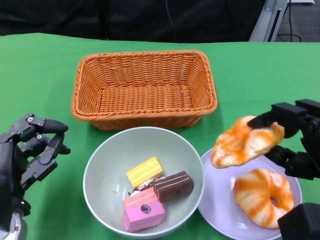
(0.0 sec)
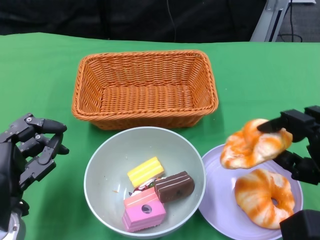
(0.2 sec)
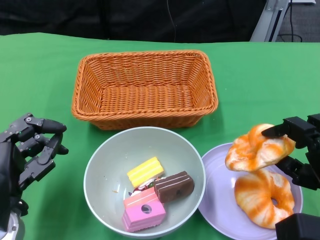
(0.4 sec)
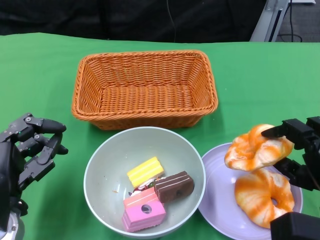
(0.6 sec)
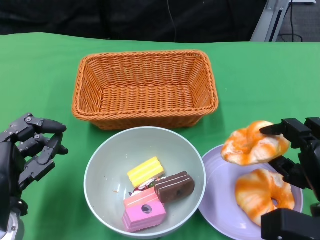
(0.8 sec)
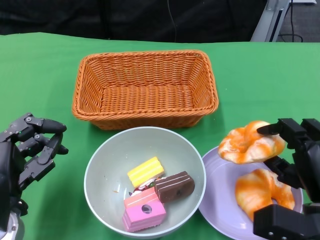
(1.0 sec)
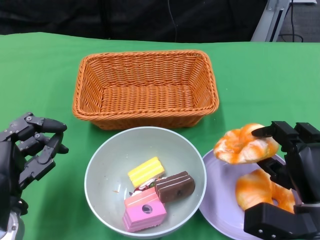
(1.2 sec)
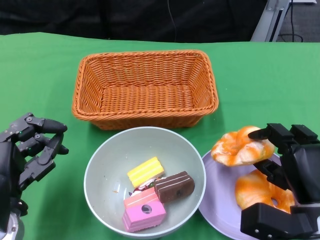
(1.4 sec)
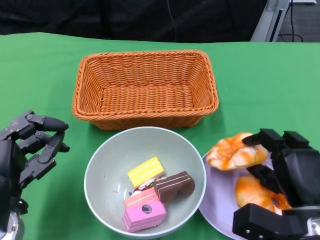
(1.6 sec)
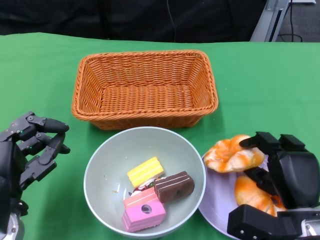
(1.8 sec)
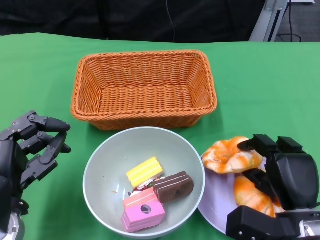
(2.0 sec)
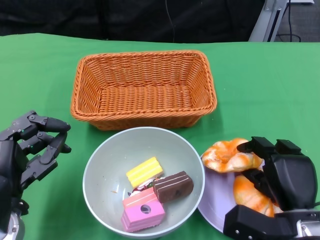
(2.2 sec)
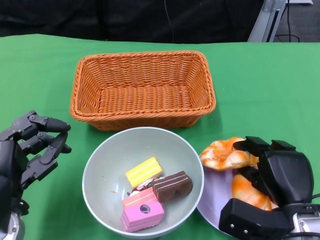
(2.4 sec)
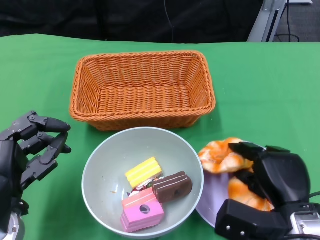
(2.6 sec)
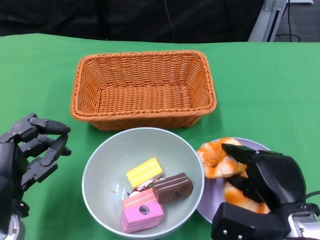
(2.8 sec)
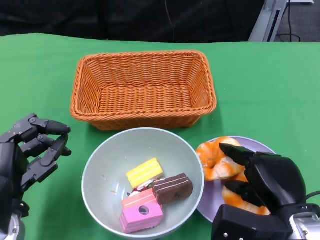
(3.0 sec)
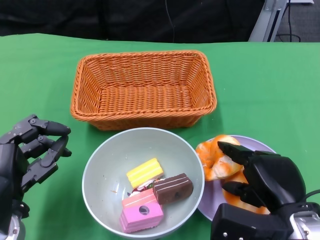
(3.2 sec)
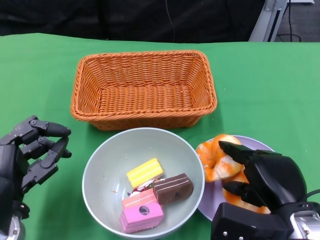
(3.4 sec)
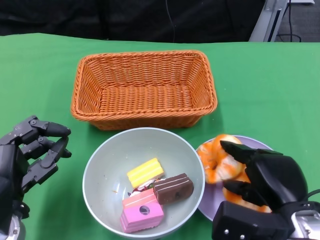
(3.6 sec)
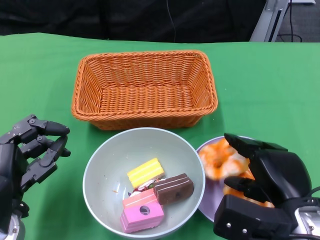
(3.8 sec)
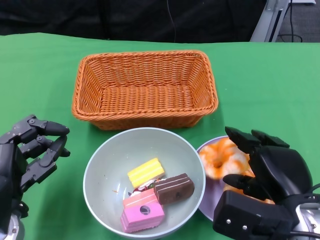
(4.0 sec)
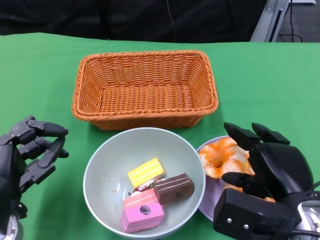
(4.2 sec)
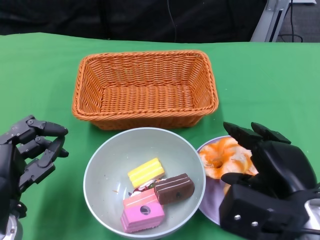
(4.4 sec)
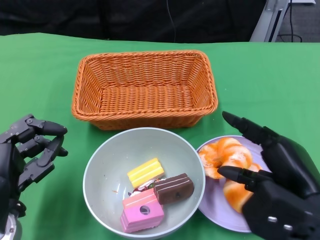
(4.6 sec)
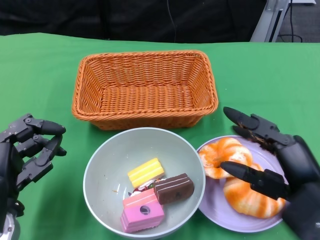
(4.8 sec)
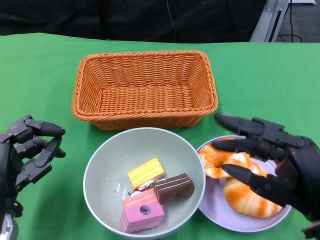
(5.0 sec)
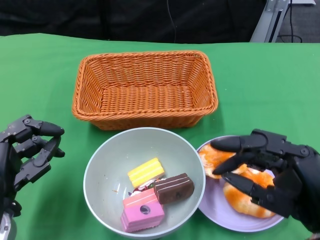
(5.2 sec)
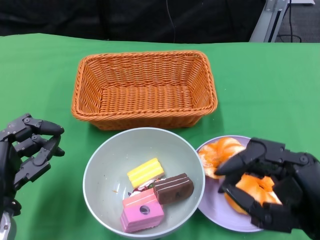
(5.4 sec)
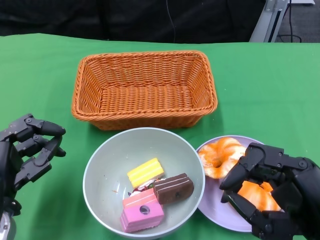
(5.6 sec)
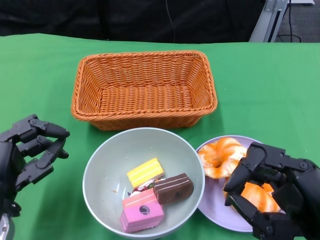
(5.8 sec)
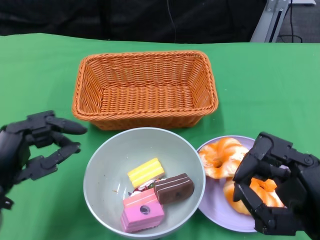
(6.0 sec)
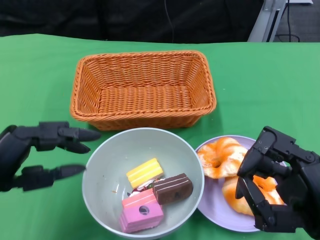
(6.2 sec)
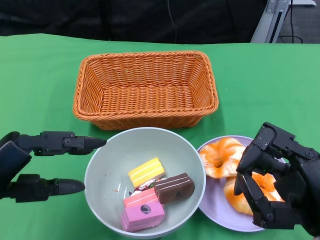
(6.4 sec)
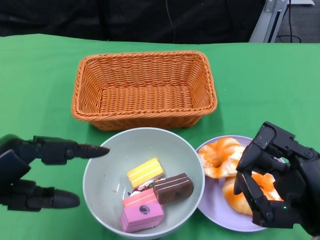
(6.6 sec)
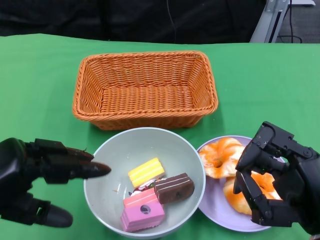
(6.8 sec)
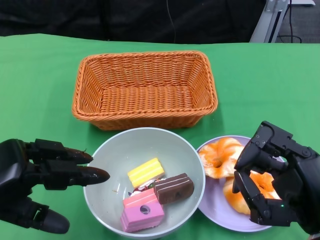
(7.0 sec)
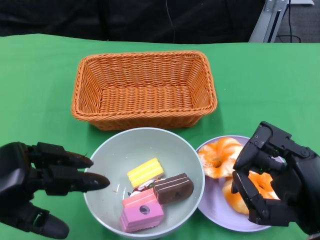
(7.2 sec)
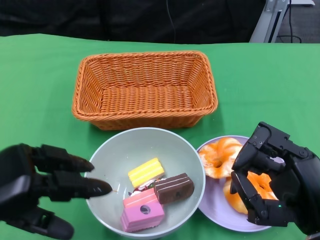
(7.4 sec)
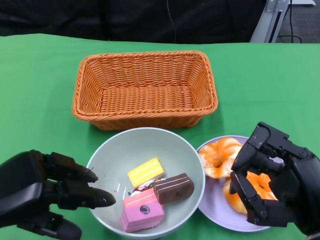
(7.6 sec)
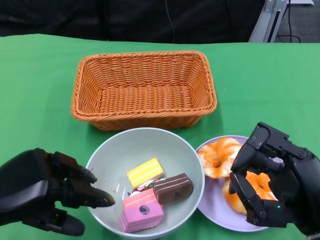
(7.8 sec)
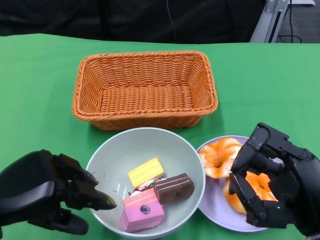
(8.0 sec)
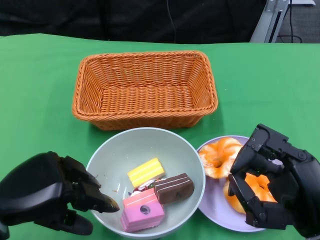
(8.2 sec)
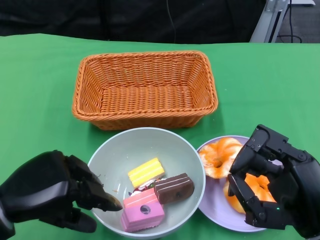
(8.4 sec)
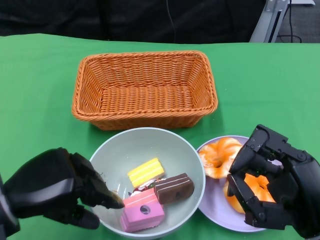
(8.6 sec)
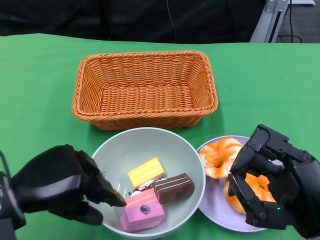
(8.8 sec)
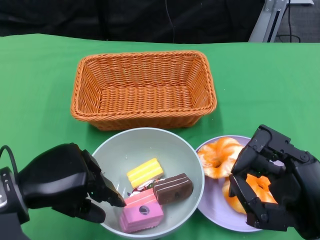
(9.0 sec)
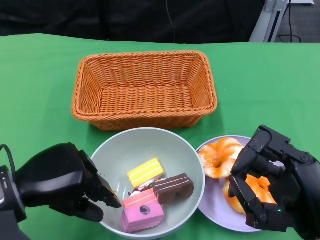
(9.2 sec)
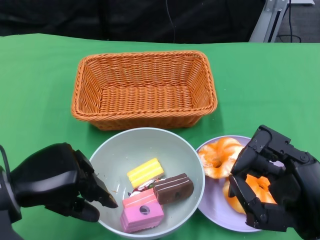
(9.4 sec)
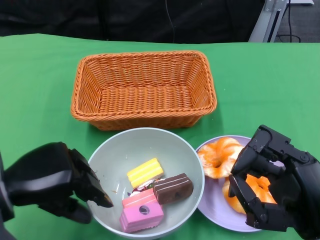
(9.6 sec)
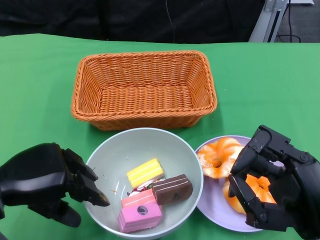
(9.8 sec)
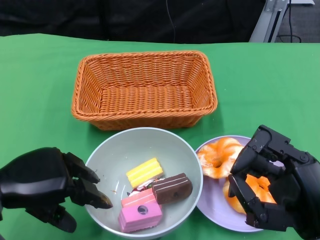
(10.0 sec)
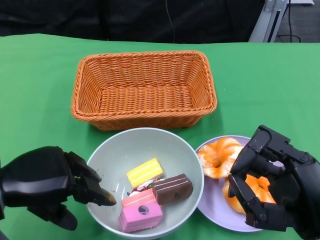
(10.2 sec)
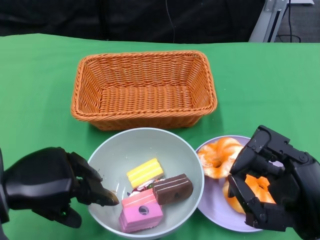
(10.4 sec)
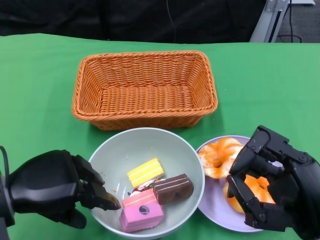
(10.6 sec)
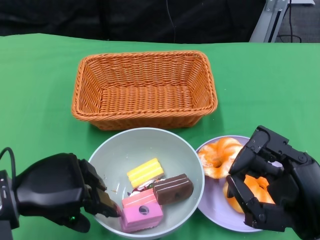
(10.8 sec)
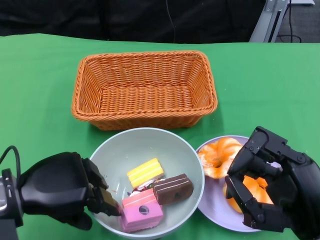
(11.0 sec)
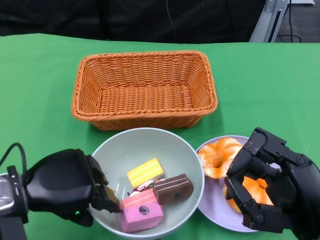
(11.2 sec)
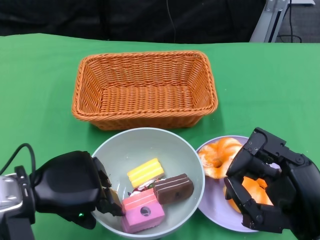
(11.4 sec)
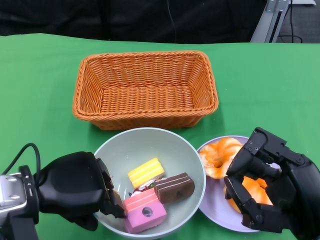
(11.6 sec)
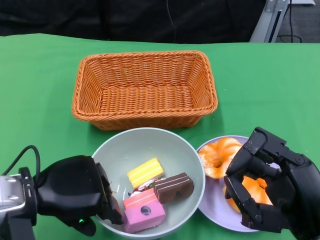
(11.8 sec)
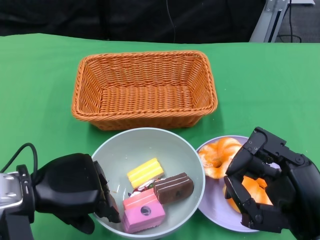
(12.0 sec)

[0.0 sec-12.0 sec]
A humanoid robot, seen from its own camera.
Step, 0.0 sec to 4.4 sec: Pick up the bread with the right gripper and place it on the plate.
0.0 sec to 1.6 sec: The right hand travels downward by roughly 10 cm.
3.0 sec to 4.4 sec: The right hand shifts by roughly 5 cm.
4.4 sec to 6.0 sec: The right hand moves backward, some 5 cm.
7.6 sec to 9.0 sec: The left hand moves approximately 5 cm.
9.0 sec to 12.0 sec: There are only small adjustments of the hands.

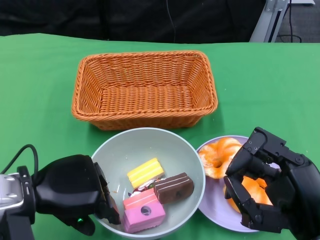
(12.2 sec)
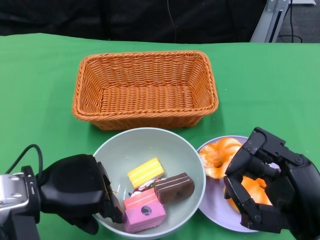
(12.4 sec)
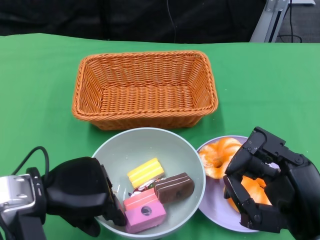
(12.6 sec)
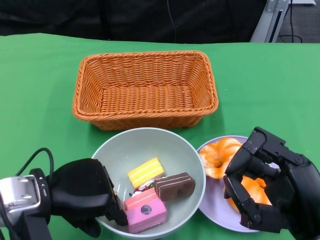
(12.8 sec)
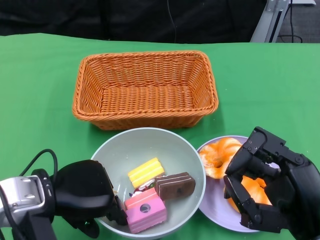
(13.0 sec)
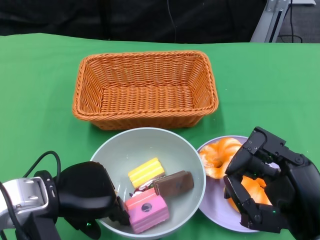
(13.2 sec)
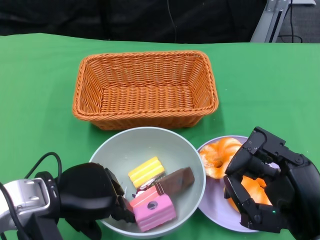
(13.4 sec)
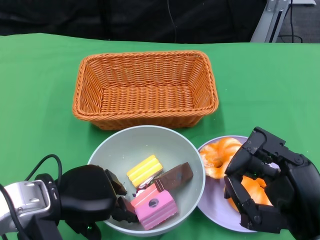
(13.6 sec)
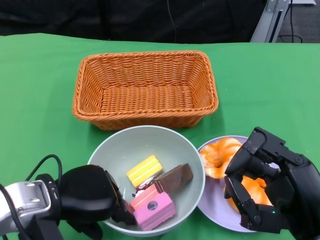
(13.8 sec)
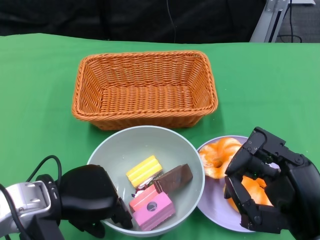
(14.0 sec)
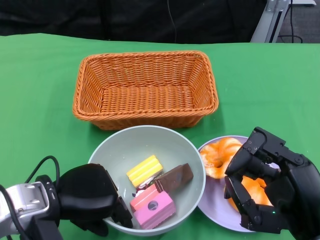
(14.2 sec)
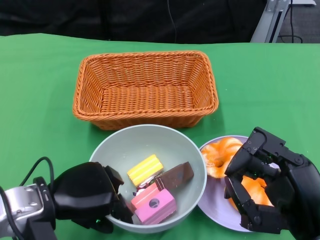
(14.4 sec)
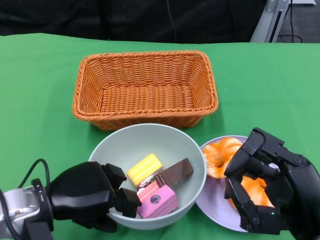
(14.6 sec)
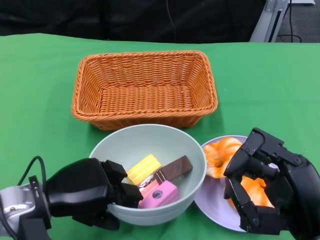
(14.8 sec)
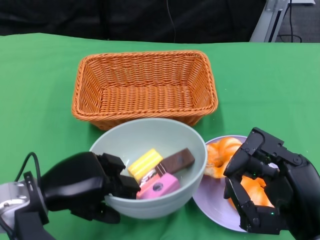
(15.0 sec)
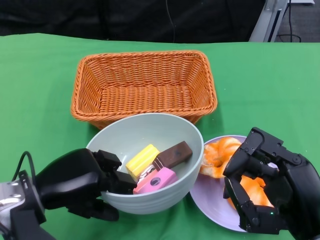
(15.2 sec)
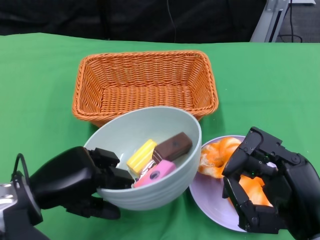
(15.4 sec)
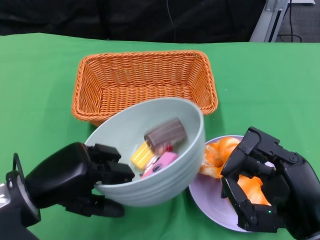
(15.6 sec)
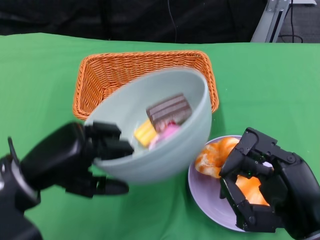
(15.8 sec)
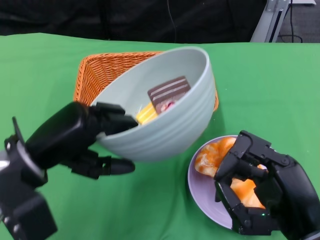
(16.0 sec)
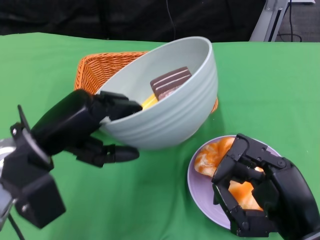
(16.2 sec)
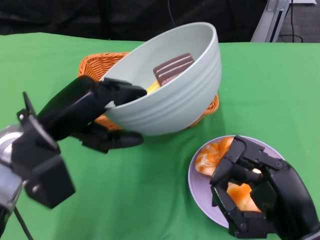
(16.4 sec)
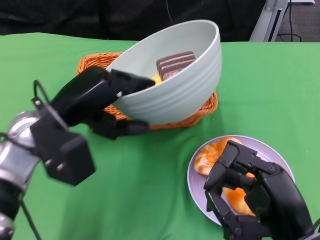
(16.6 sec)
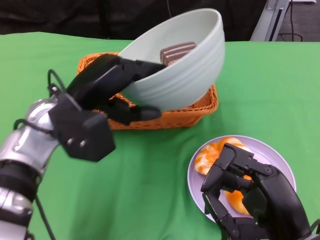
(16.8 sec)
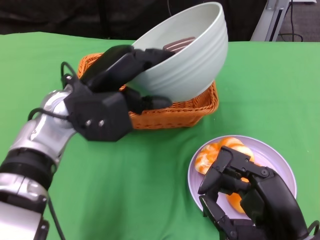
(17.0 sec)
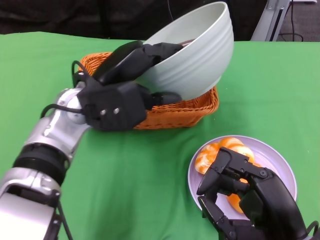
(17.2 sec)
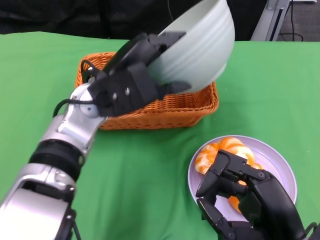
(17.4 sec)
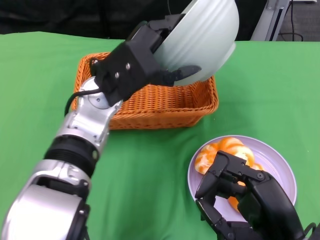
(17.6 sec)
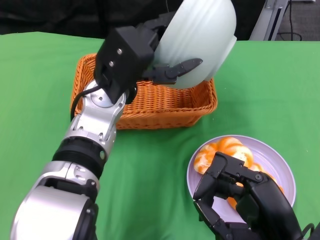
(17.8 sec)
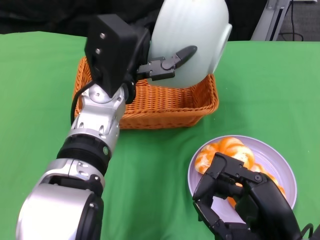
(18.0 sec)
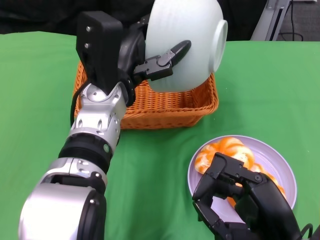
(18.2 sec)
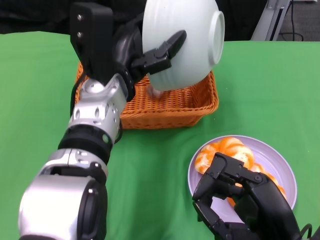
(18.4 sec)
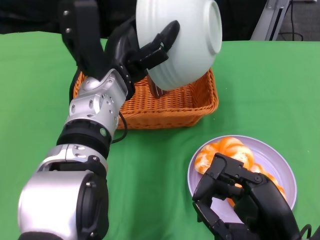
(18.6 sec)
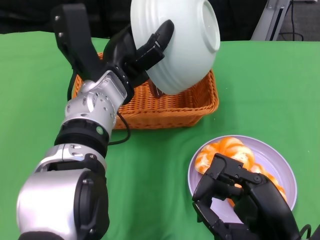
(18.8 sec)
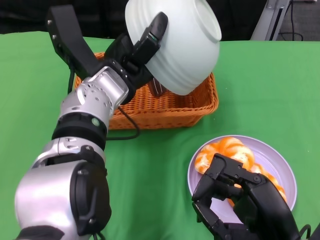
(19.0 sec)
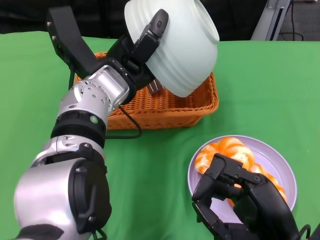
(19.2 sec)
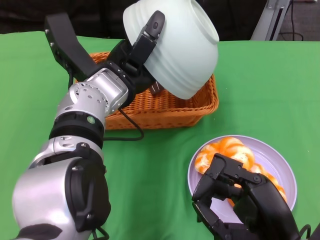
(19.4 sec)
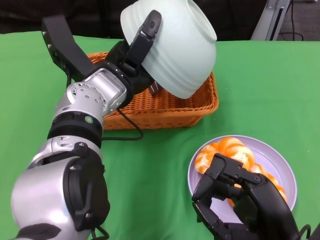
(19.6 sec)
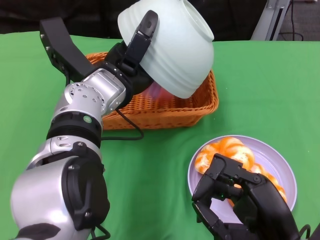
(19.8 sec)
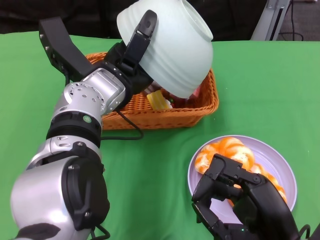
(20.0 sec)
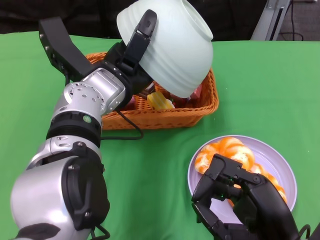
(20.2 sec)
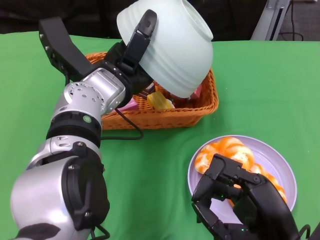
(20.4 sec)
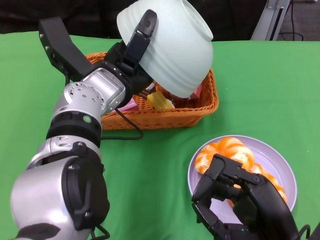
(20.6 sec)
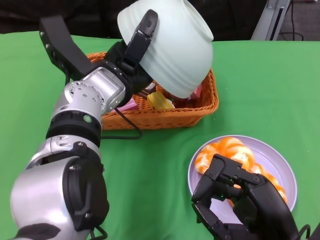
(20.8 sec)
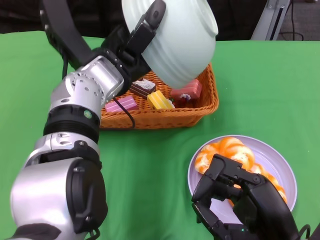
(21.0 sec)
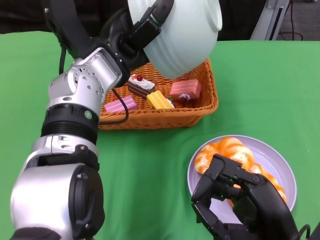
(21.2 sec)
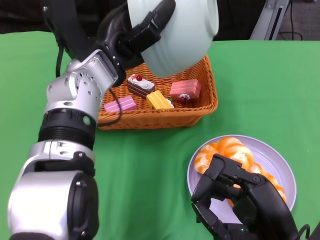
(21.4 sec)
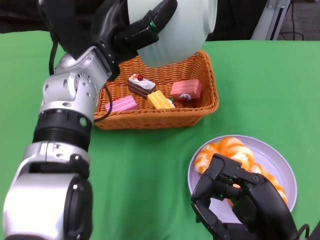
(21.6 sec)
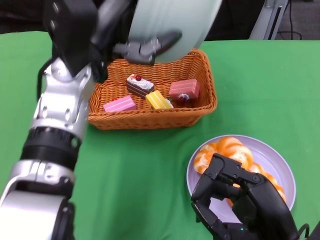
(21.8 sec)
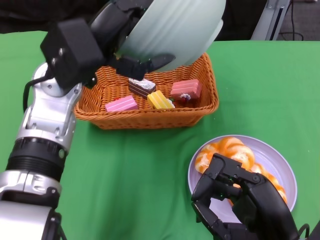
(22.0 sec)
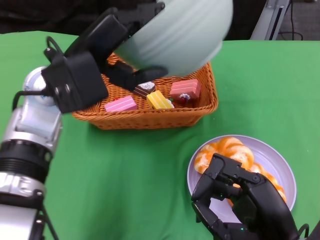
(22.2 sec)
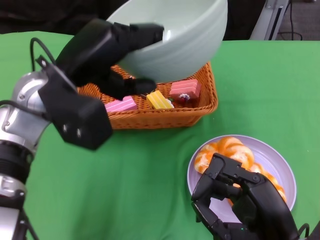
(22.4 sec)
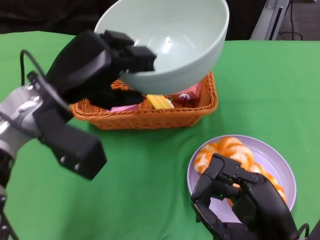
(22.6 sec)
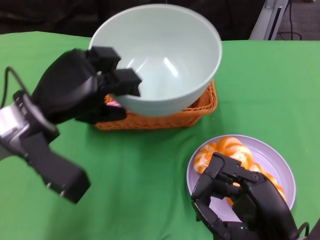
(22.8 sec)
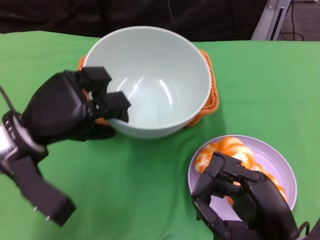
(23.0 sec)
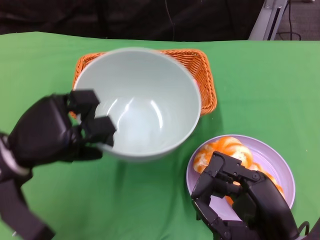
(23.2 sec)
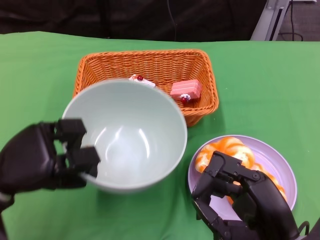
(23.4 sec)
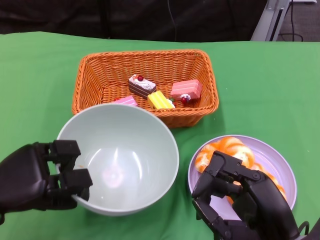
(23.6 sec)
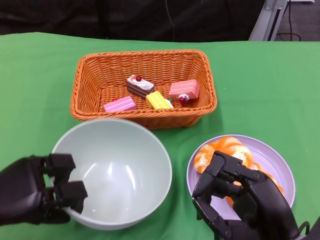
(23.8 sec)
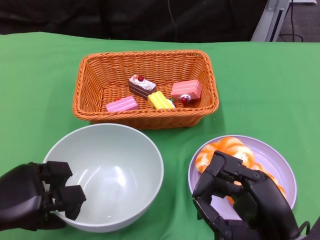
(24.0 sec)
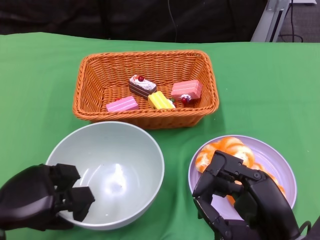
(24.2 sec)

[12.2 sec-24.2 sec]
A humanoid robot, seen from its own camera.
Step, 12.2 sec to 14.2 sec: Grasp the bowl with the left gripper.
Step, 14.4 sec to 21.0 sec: Pour the cake into the basket with the left gripper.
12.2 sec to 13.8 sec: There are only small adjustments of the hands.
15.2 sec to 16.6 sec: The left hand heads upward and forward, covering approximately 10 cm.
16.6 sec to 18.2 sec: The left hand goes roughly 10 cm to the right.
21.2 sec to 22.6 sec: The left hand moves to the left, about 10 cm.
22.6 sec to 24.2 sec: The left hand shifts approximately 20 cm downward, to the left and backward.
